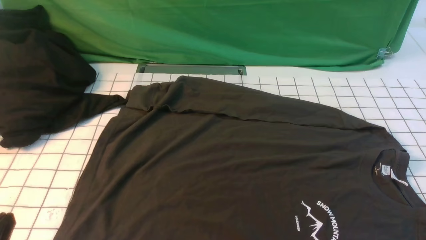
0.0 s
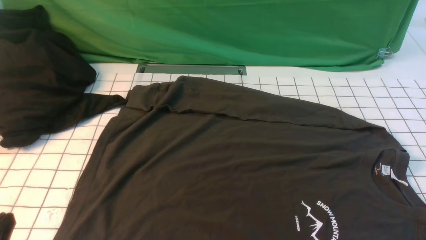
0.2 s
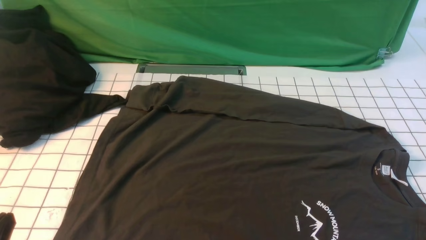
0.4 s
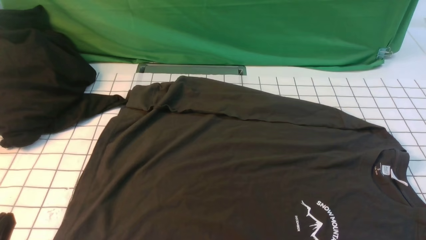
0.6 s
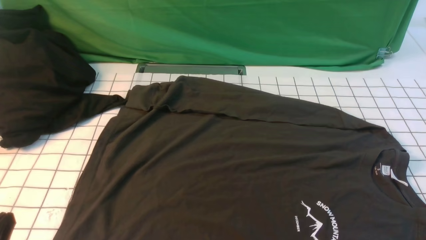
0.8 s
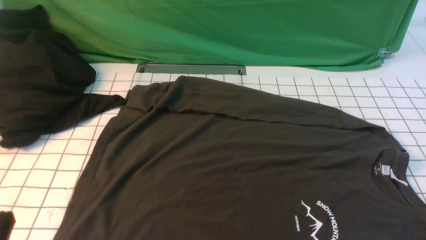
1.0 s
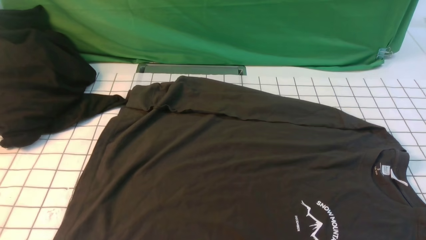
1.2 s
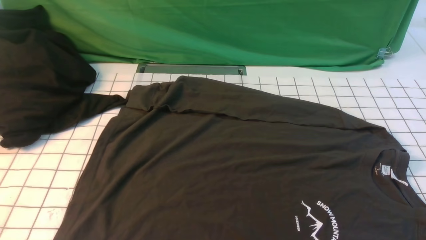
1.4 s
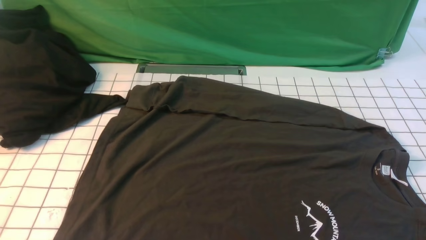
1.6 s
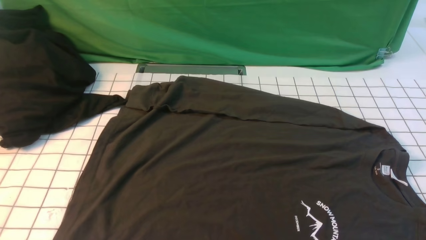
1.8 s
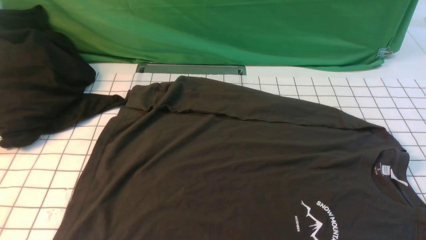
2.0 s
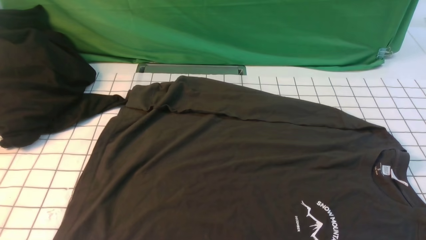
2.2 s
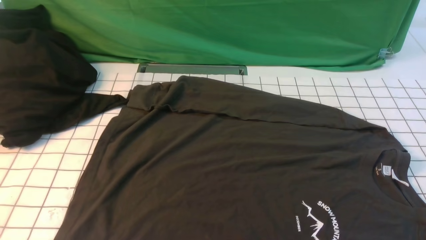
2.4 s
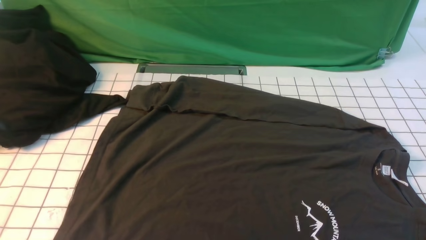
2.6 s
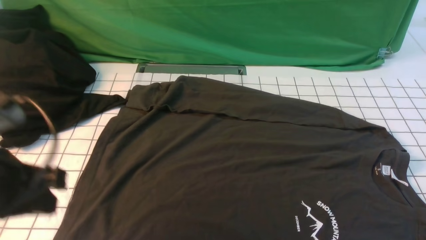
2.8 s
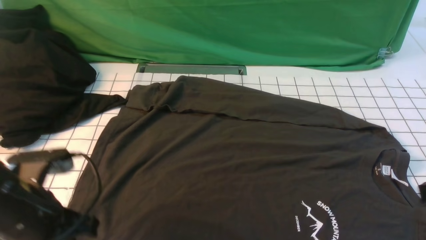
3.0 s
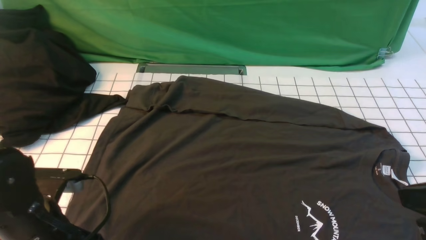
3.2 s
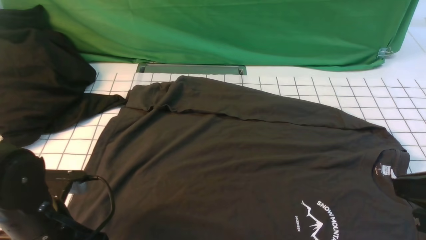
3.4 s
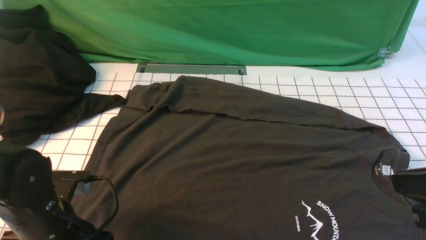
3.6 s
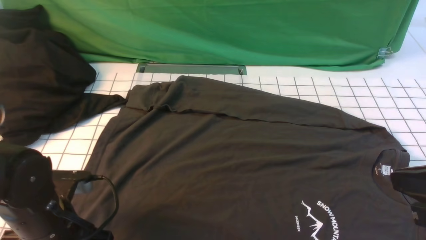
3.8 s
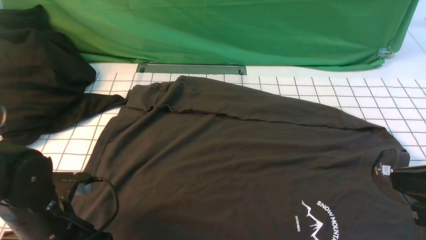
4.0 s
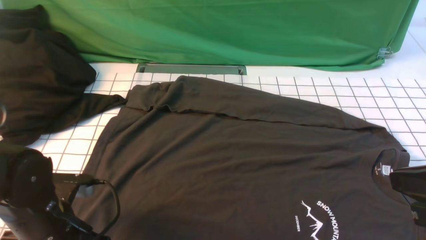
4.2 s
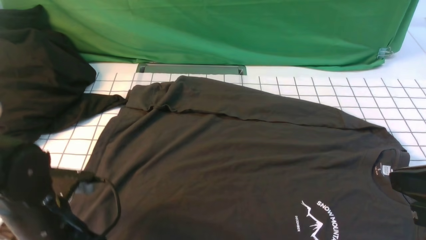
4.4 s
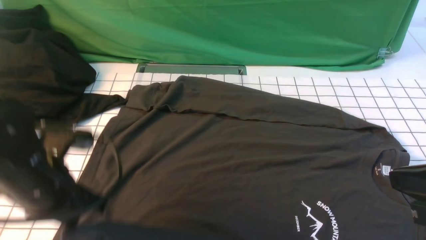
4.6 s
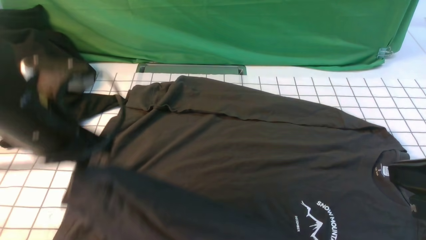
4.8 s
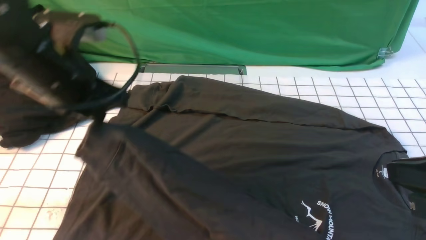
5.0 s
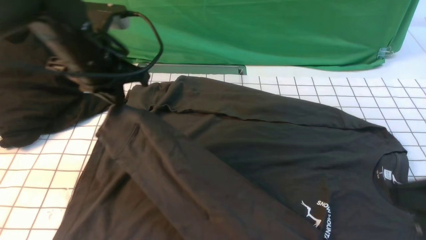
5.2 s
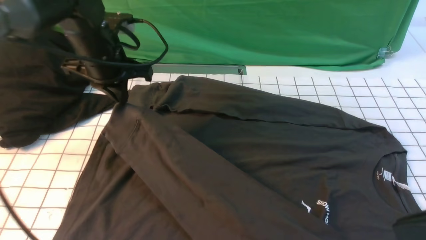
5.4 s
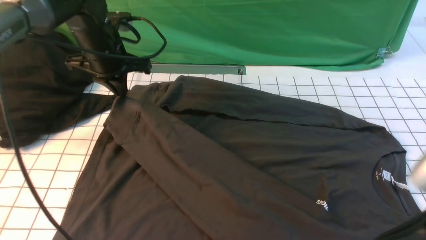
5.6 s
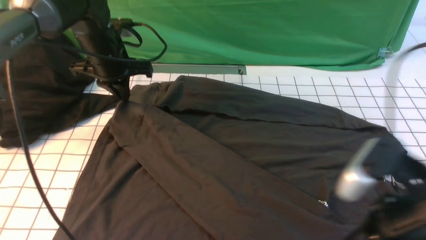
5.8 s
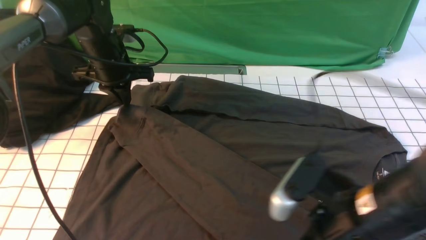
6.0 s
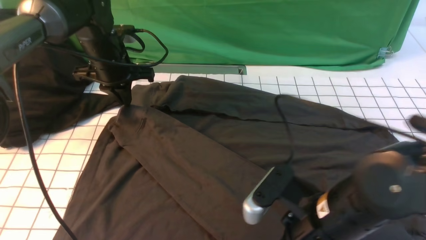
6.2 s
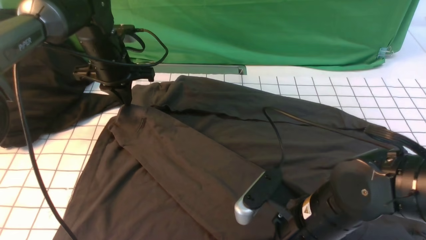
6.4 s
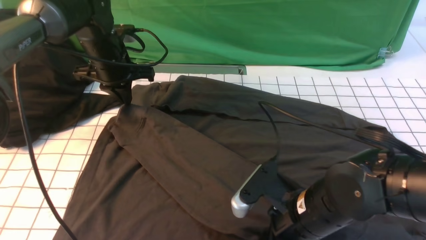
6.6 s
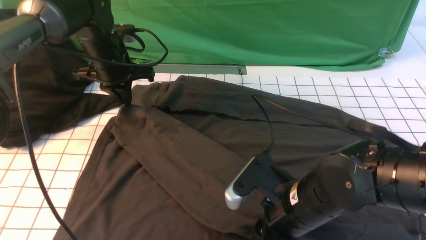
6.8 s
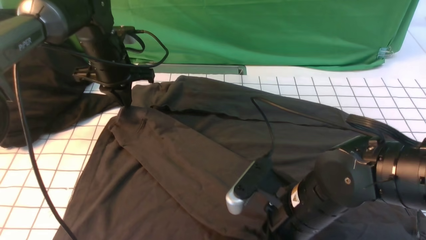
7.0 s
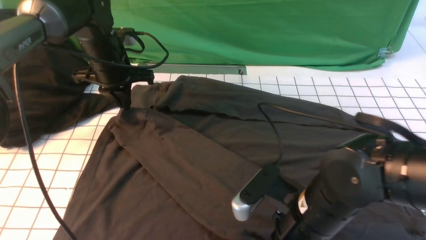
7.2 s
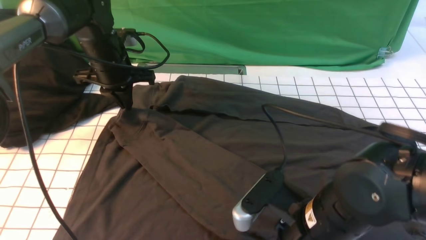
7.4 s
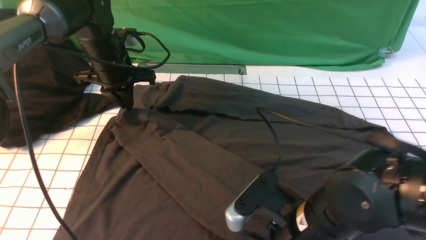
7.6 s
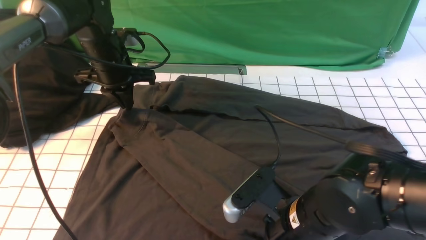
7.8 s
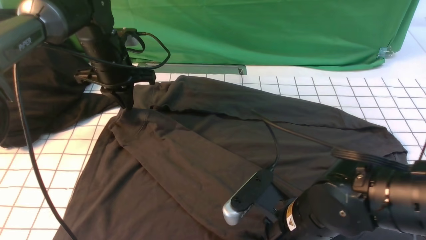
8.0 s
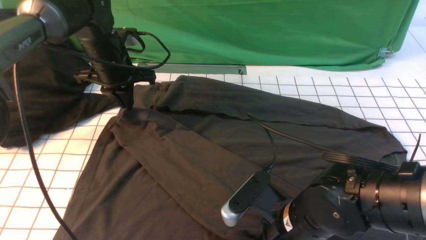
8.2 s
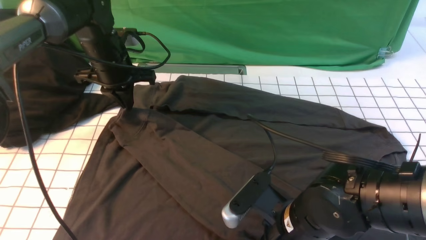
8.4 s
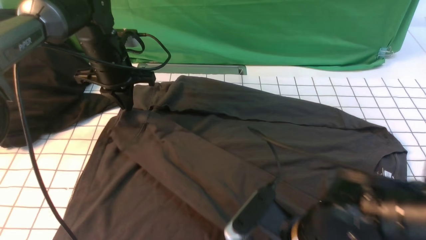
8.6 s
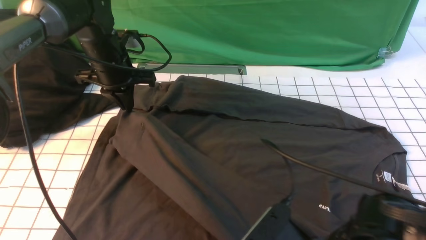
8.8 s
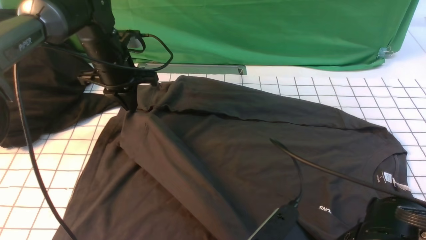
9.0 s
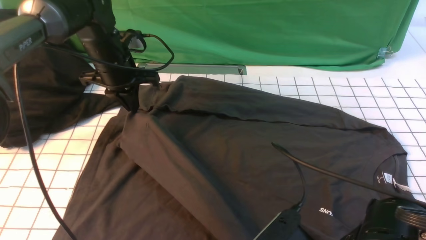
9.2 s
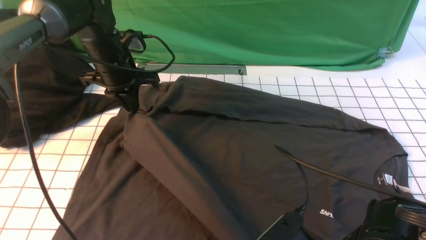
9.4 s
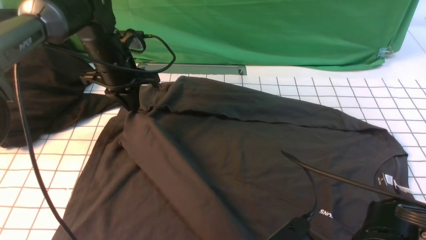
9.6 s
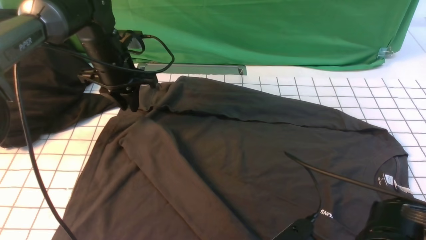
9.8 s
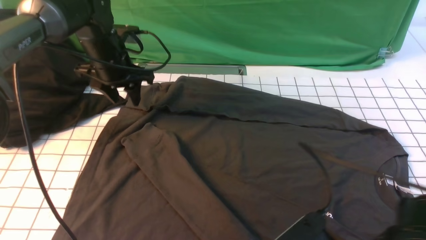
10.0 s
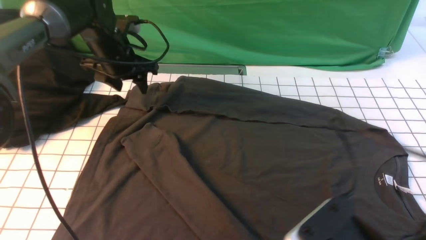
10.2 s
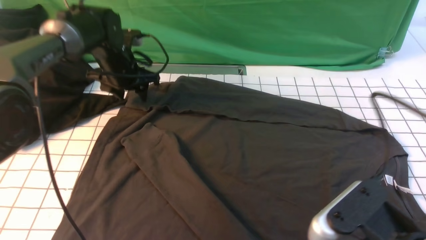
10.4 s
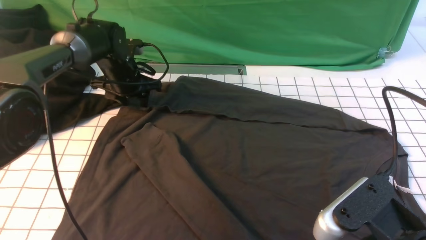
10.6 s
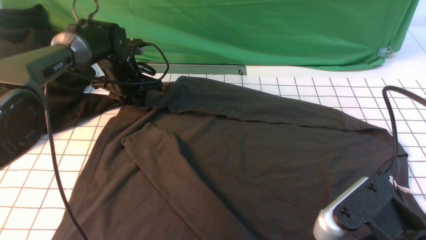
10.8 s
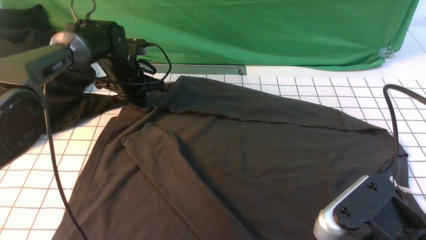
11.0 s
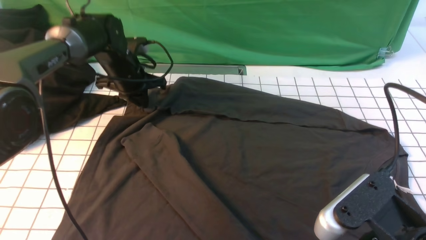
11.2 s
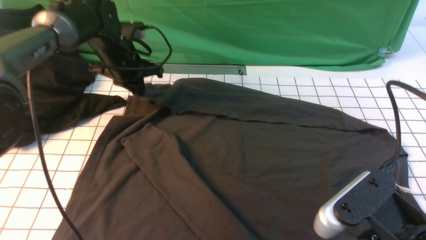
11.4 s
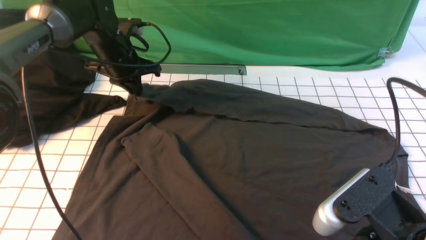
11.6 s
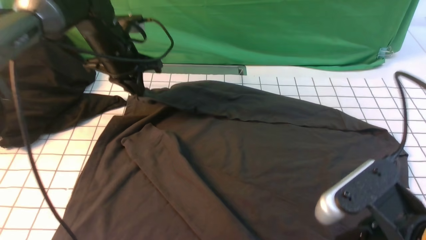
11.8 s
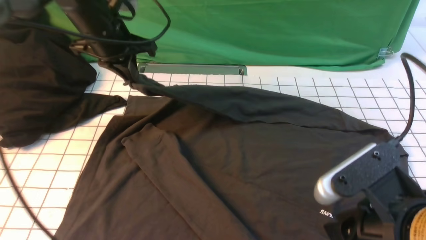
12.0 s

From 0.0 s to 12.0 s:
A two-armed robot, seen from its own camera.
Step, from 0.0 s to 4.2 s: use the left arm to clamp the cuff closest to it.
Step, from 4.4 s to 9.6 s: use the left arm to drag and place the cuff at the centered position on the left edge of the fabric.
From 1.6 s to 3.0 s: The left gripper heads forward, covering about 15 cm.
From 3.0 s to 4.4 s: The left gripper opens, then closes again.
From 4.4 s to 6.0 s: The left gripper heads forward, covering approximately 25 cm. Meanwhile the right gripper heads to the left and downward, covering approximately 15 cm, and opens.
From 6.0 s to 7.6 s: The right gripper goes roughly 5 cm downward, and closes, then opens again.
From 7.6 s to 9.0 s: The right gripper heads backward, covering approximately 5 cm, and closes up.
From 9.0 s to 10.4 s: The left gripper ends up approximately 5 cm from where it was, and opens. Meanwhile the right gripper heads upward and to the right, covering some 10 cm, and opens.
From 10.4 s to 12.0 s: The right gripper closes. Meanwhile the left gripper moves upward and backward, roughly 15 cm, and closes up.

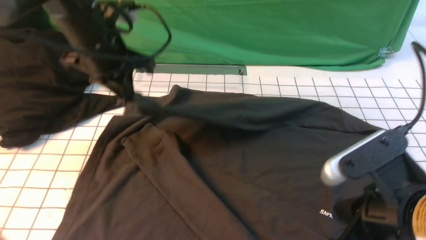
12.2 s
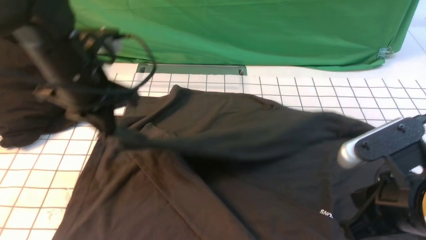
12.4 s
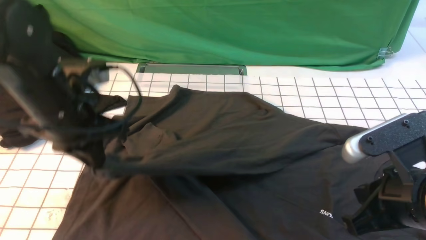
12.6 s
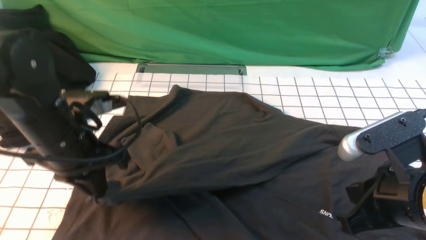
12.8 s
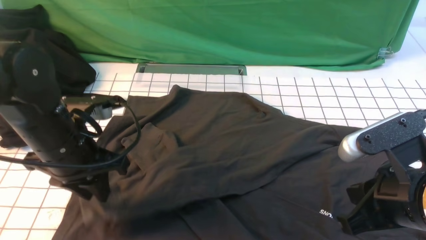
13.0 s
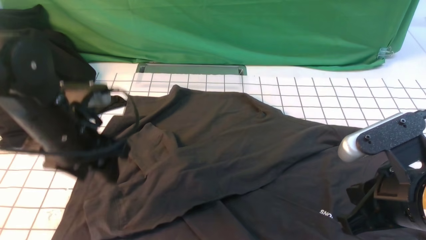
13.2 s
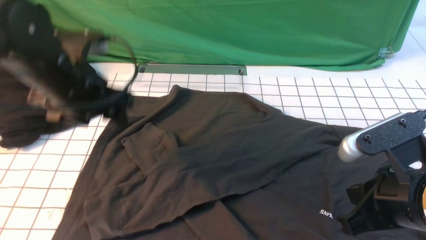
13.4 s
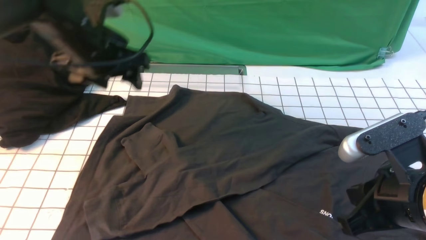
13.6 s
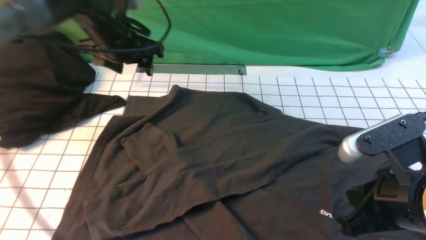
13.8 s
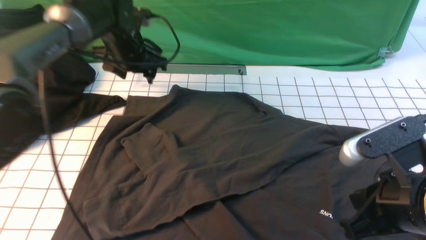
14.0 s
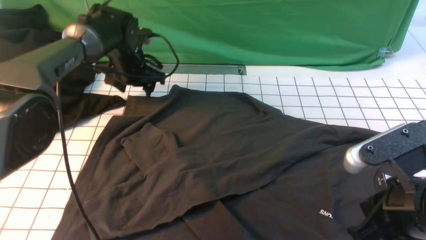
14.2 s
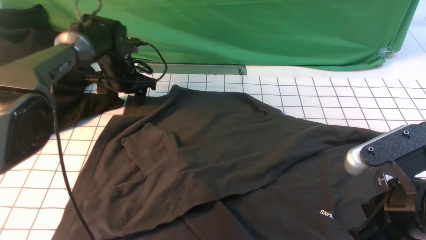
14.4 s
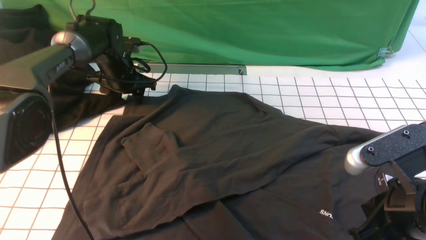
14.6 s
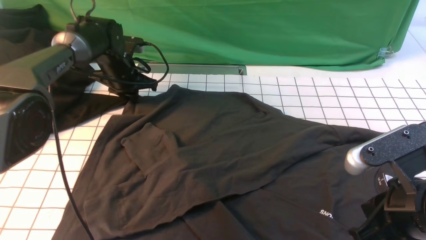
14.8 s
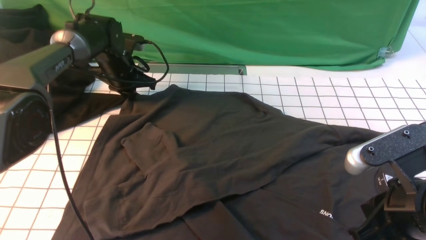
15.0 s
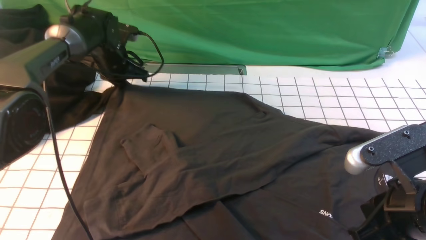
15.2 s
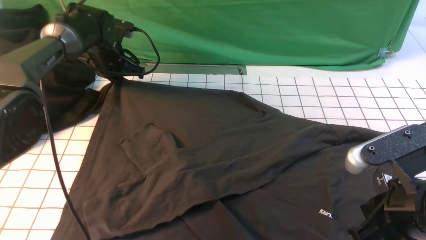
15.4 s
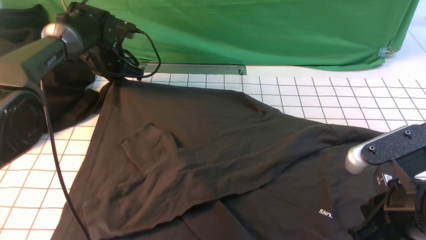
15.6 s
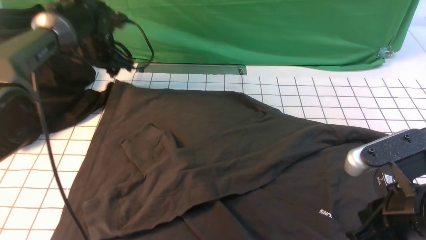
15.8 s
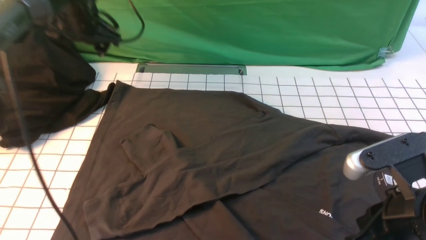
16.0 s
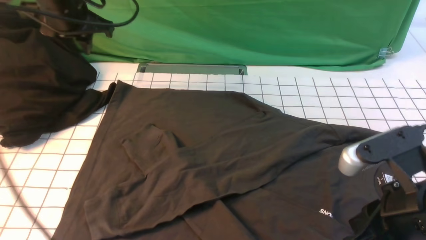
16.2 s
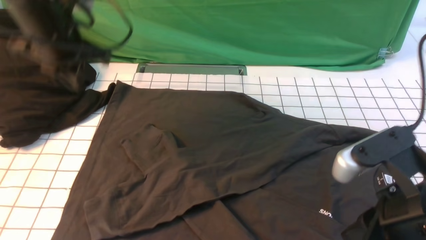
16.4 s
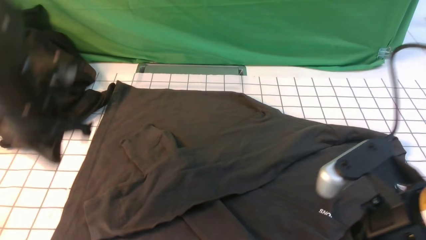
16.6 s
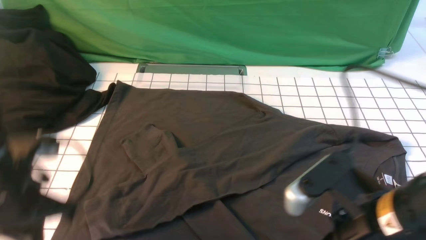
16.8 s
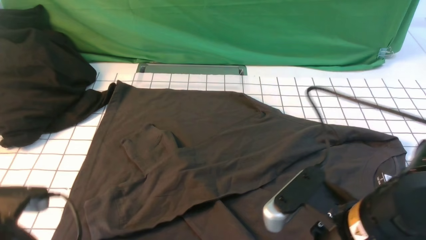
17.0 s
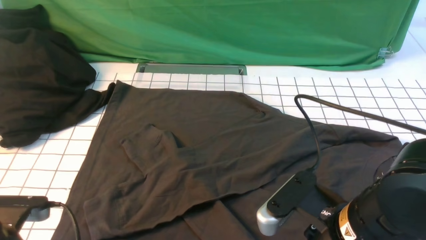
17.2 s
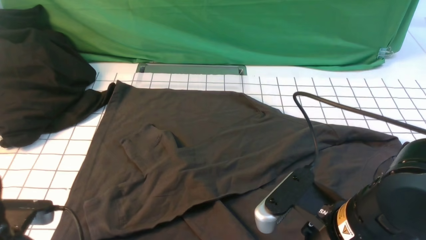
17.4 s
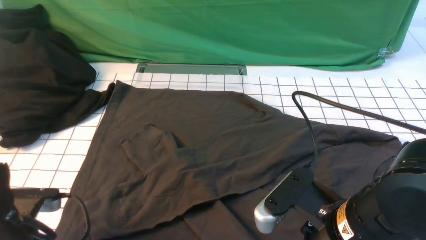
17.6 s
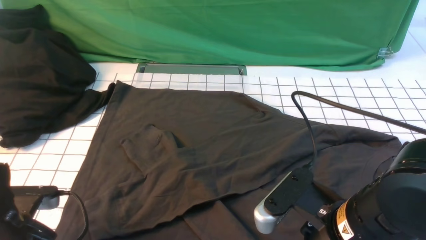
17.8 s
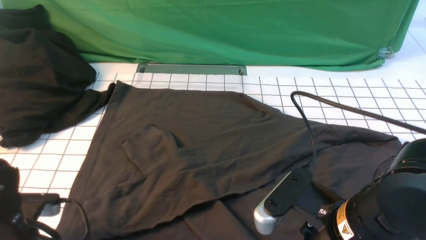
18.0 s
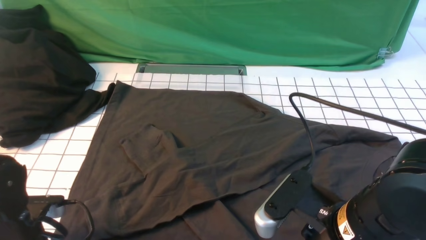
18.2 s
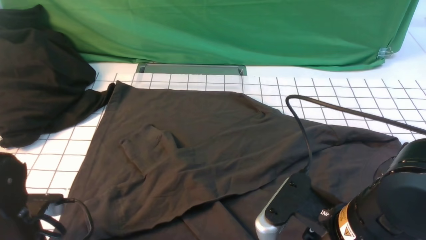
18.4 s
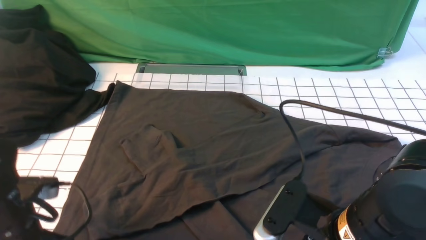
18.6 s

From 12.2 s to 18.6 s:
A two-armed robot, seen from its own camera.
From 12.2 s to 13.8 s: The left gripper goes about 10 cm forward, and opens its fingers.
From 13.8 s to 15.4 s: The left gripper moves downward, forward and to the left, approximately 10 cm, and closes.
From 15.4 s to 17.0 s: The right gripper travels to the left by approximately 5 cm. The left gripper goes about 35 cm backward.
From 17.0 s to 18.6 s: The left gripper closes its fingers.
